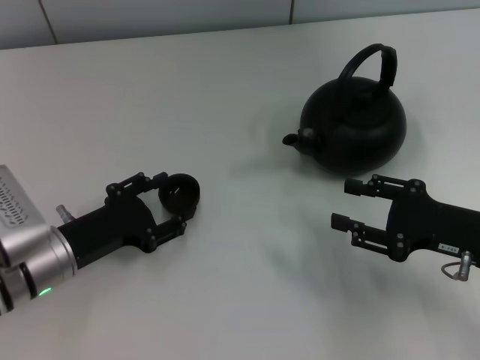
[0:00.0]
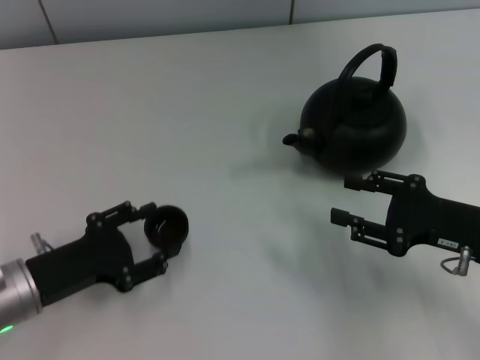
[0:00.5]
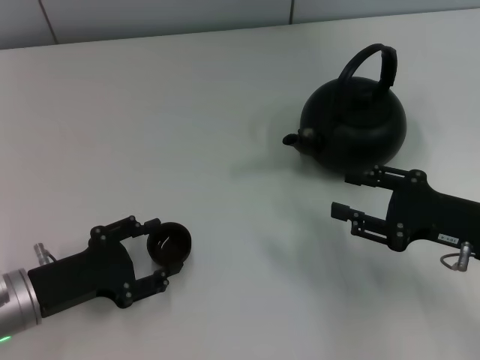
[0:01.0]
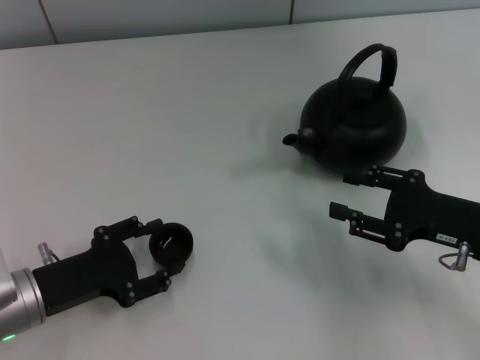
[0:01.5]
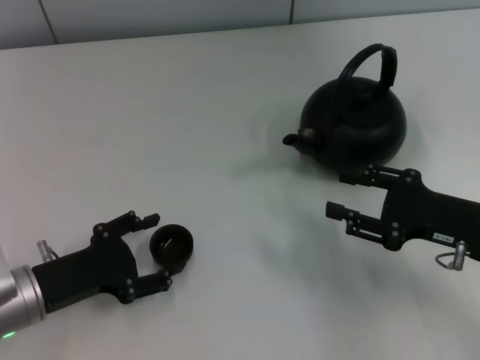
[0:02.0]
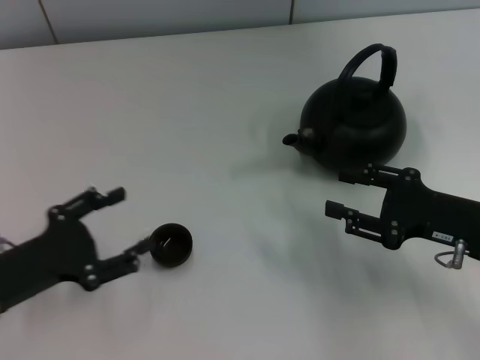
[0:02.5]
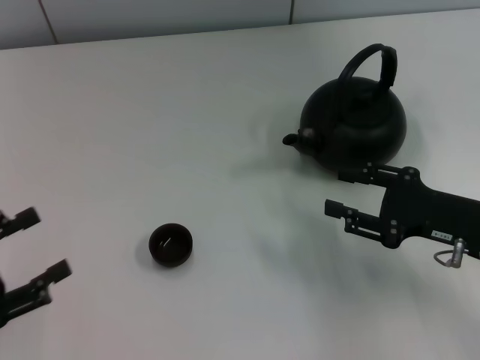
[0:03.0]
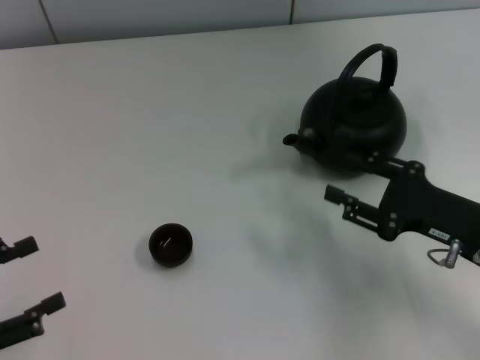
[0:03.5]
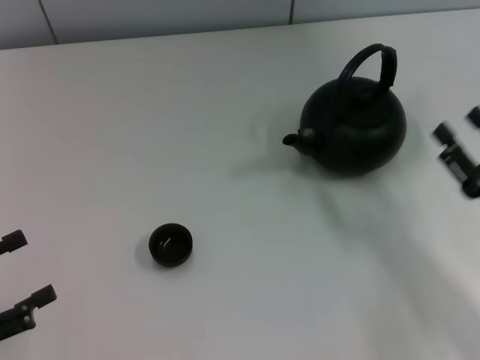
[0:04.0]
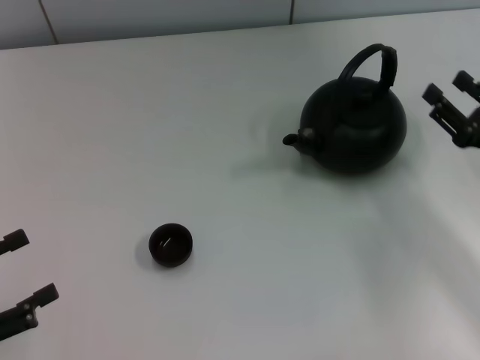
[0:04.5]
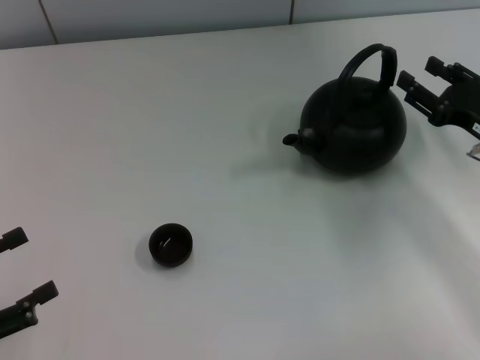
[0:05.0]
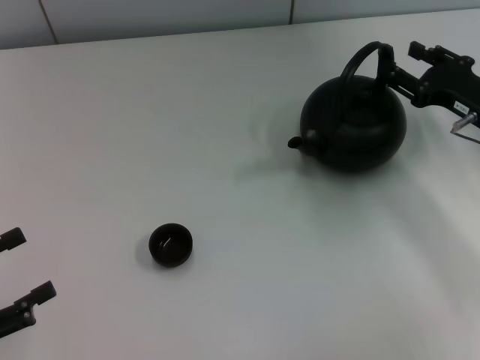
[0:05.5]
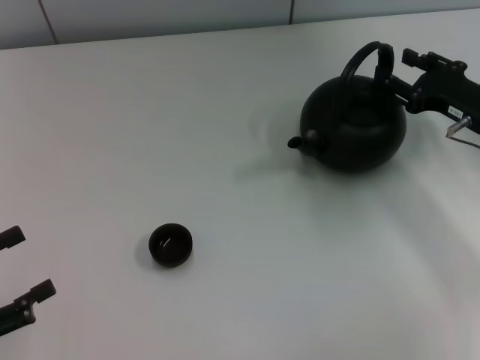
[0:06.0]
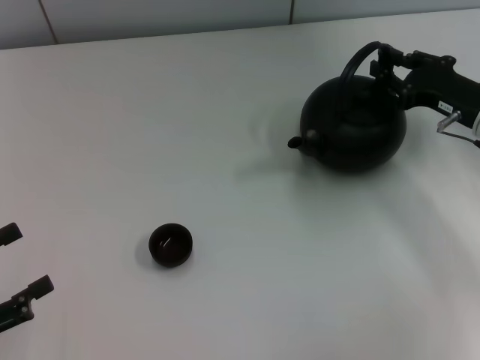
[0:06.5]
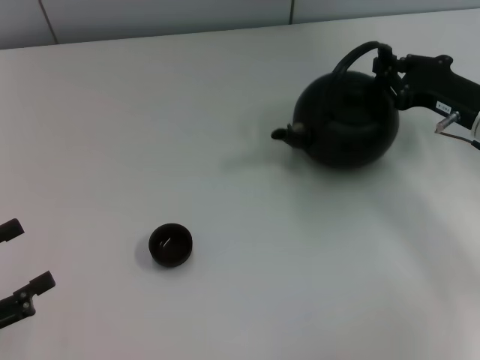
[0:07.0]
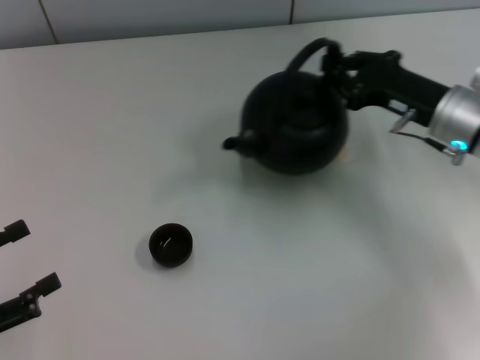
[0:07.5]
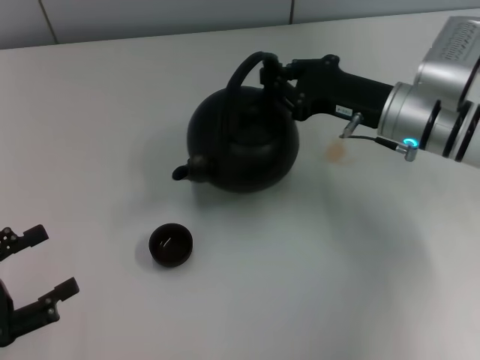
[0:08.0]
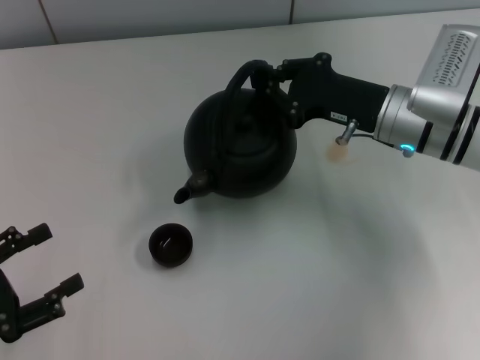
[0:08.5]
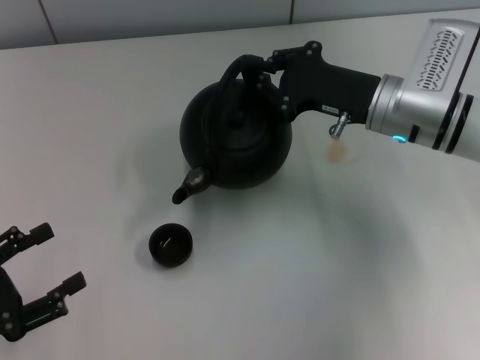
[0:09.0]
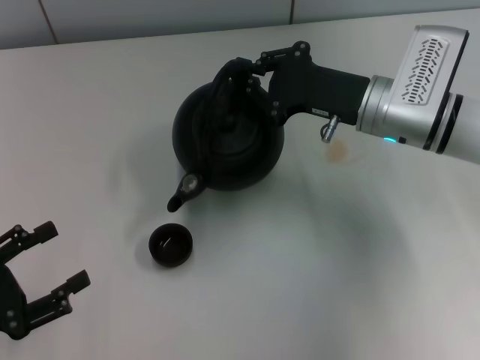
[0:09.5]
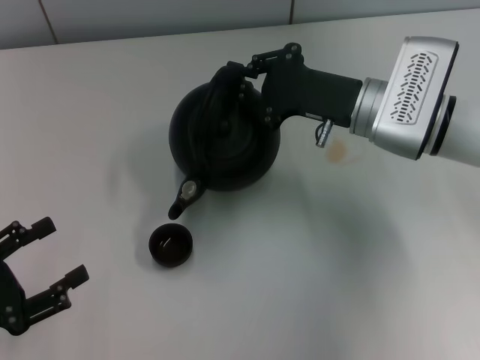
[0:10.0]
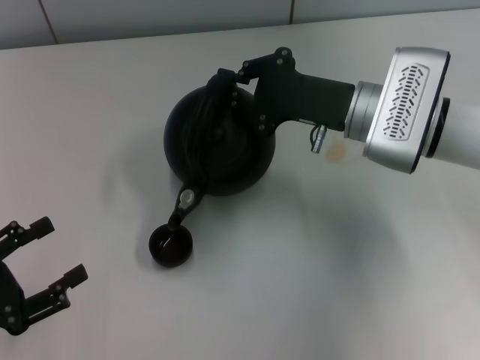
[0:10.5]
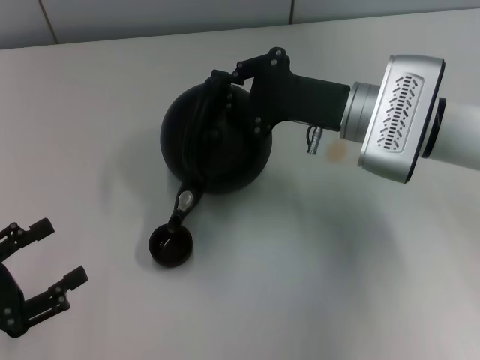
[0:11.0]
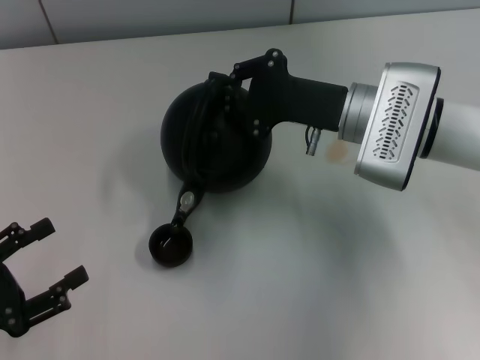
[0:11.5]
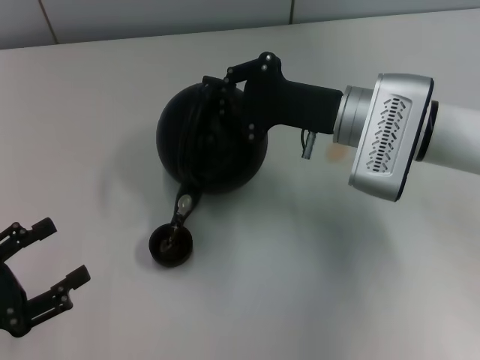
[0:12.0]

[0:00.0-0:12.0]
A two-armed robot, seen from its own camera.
Task of the whole recording: Grasp the handle of the teapot with one hand and pour tea into the teacup.
Step, 0:00.5 to 0:03.0: Place the teacup in the center of view with the left gripper.
Step, 0:03.5 to 0:07.0: Pick up the teapot with the right gripper.
0:00.0 to 0:02.0: The grippers make only small movements.
0:02.0 to 0:04.0: The left gripper heads to the left and backward, covering approximately 15 cm, while the right gripper shifts by approximately 5 cm.
0:04.0 to 0:06.0: The right gripper heads forward, covering about 15 cm.
0:06.0 to 0:08.0: The right gripper goes approximately 10 cm to the left, and closes up.
0:10.0 to 0:12.0: The grippers stay close to where they were, moving slightly.

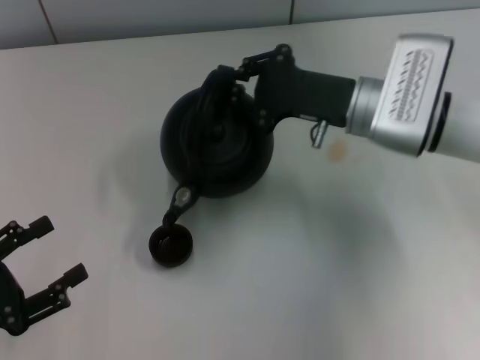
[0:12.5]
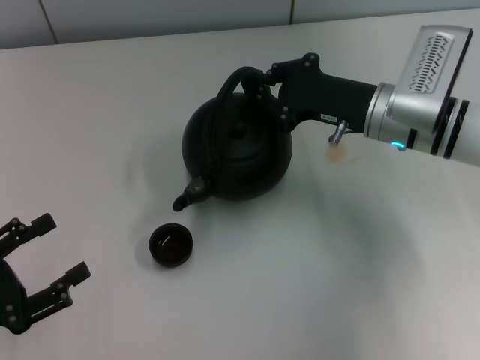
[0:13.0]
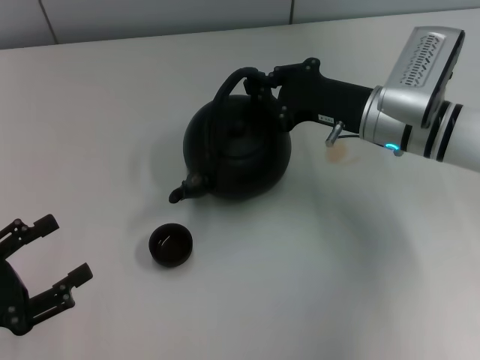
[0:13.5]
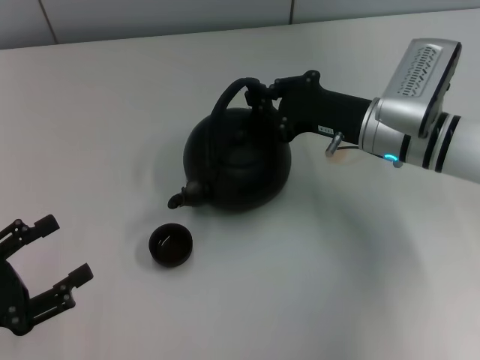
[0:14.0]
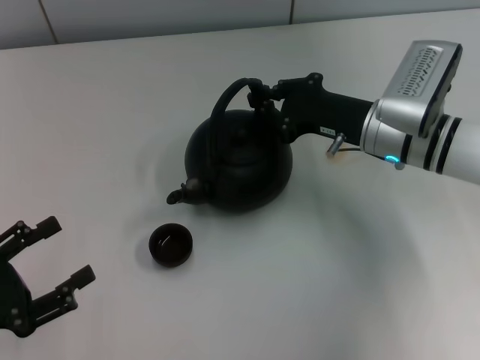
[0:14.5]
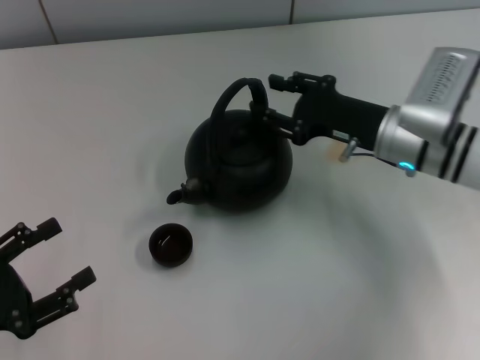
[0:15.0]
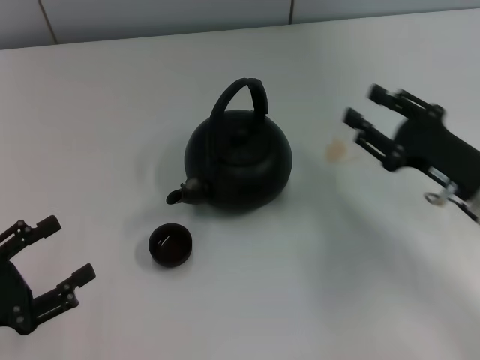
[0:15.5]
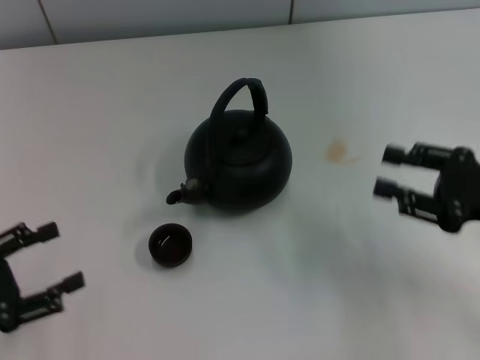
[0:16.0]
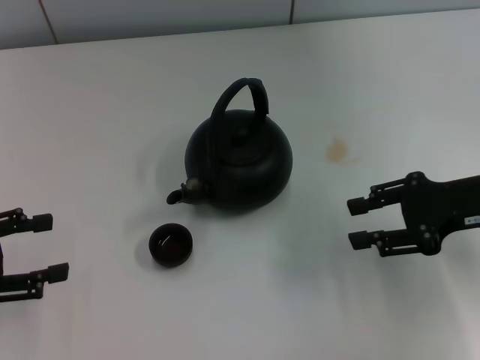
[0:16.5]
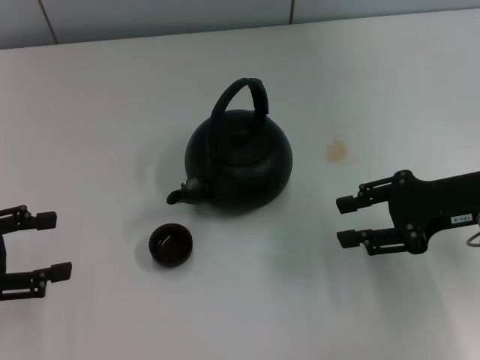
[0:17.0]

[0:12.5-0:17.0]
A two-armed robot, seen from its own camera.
Task of the whole recording: Grasp the handle of the teapot with one hand and pour tea into the teacup.
Step, 0:14.0 to 0:15.5: Put down the teapot with the right gripper.
0:14.5 to 0:17.0: The left gripper goes approximately 10 cm forward and upward; the right gripper travels to the right and backward by about 10 cm, and opens its fingers.
